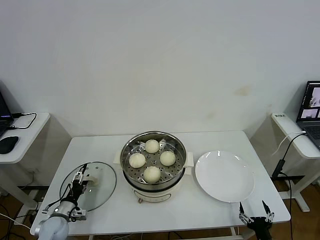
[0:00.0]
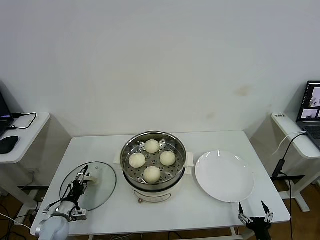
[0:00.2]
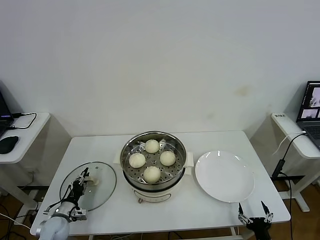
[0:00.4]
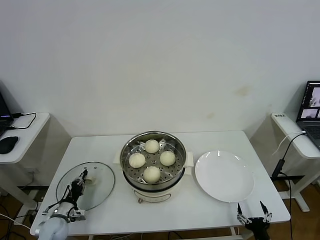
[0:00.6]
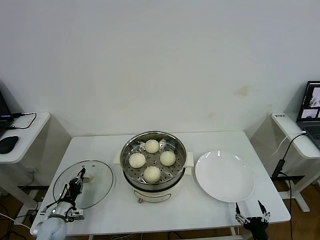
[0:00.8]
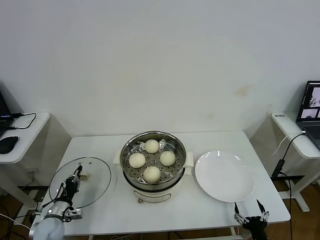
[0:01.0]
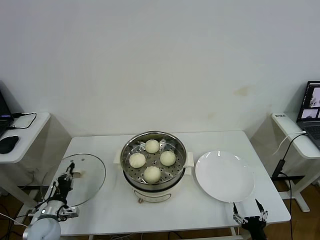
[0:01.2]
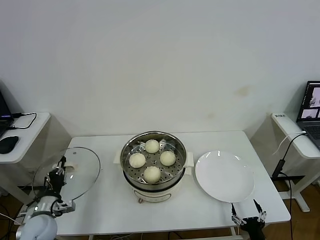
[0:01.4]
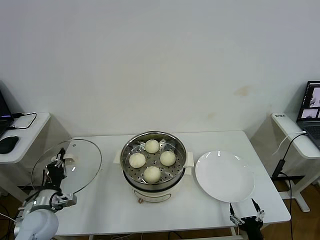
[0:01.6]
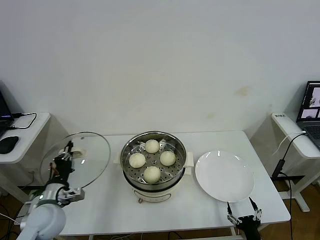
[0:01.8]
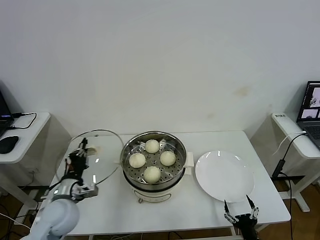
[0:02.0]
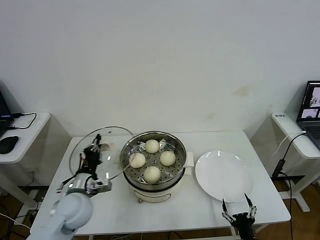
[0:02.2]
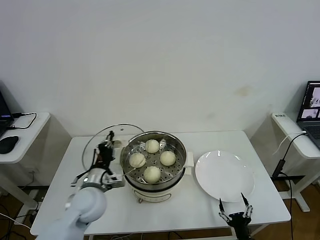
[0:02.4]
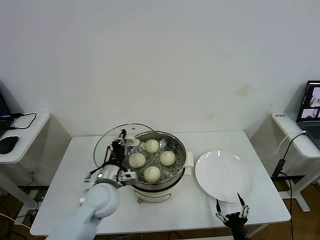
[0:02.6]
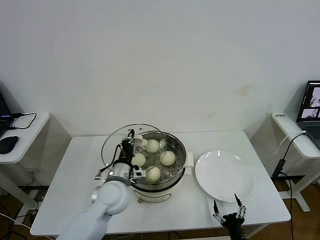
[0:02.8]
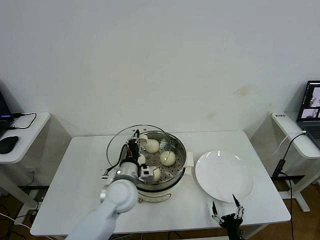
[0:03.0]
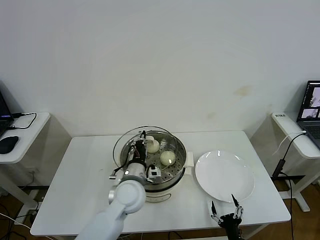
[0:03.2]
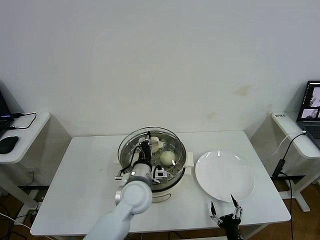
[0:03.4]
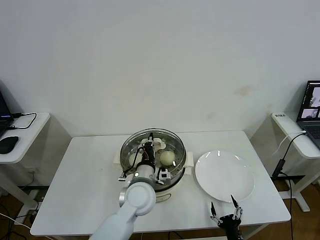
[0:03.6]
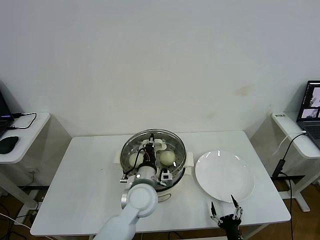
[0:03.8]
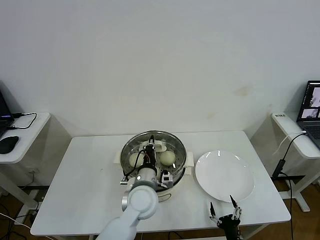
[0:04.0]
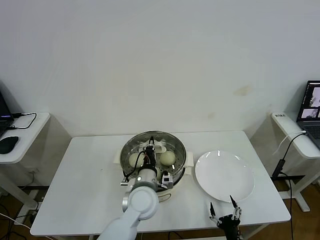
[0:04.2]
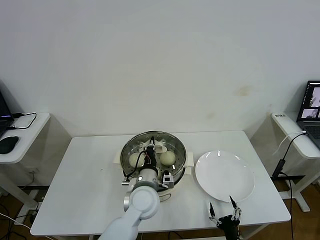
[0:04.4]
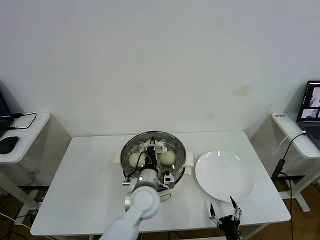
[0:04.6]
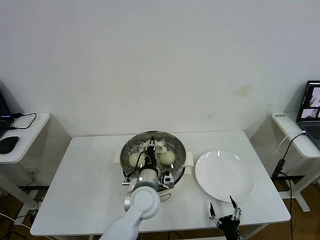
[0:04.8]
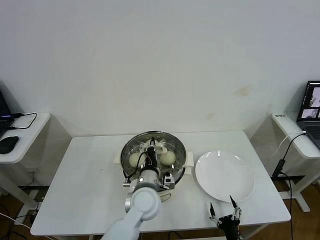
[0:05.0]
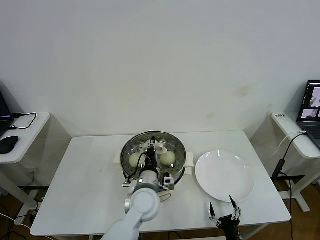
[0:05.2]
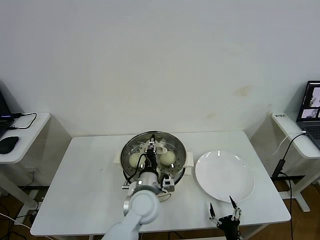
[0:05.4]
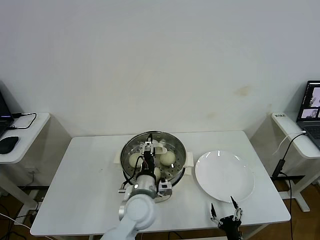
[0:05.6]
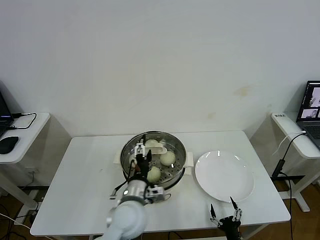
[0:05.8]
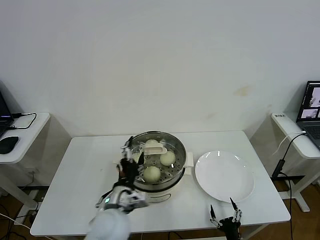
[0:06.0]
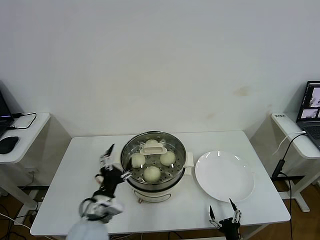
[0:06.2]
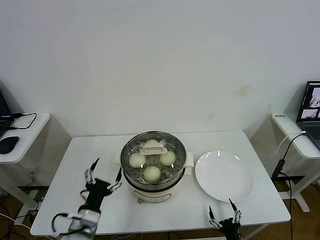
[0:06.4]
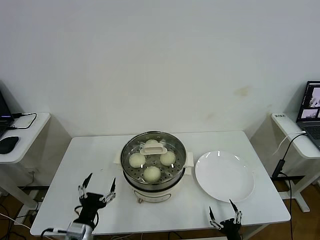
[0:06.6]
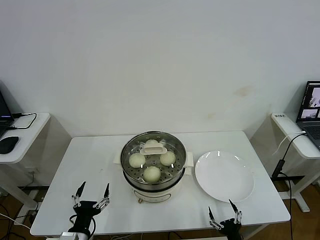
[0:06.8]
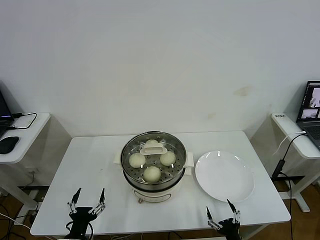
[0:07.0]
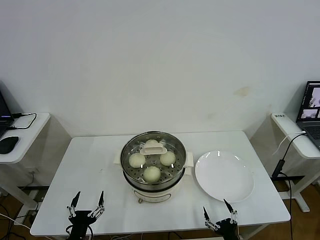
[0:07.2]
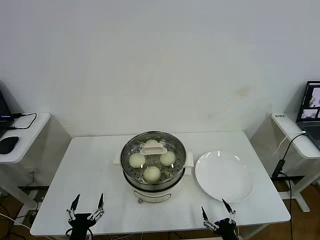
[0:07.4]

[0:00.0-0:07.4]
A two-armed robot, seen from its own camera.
Step, 0:01.0 to 0:05.2: Place the pot lid on the steamer with left gripper.
0:00.0 to 0:01.4: The left gripper goes about 10 cm upward, and closes up.
0:01.4 to 0:03.0: The right gripper moves to the left, about 5 cm; the left gripper shifts roughly 30 cm to the right and upward.
0:03.0 to 0:04.4: The left gripper is displaced to the right by about 5 cm.
0:04.4 to 0:06.0: The left gripper heads backward and to the left, covering some 10 cm, and opens its fingers.
0:06.0 to 0:07.4: The left gripper shifts roughly 25 cm to the left, backward and downward.

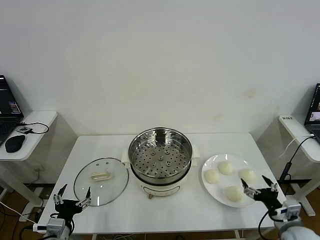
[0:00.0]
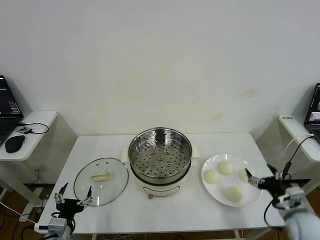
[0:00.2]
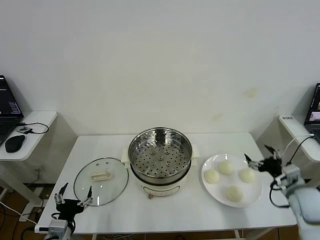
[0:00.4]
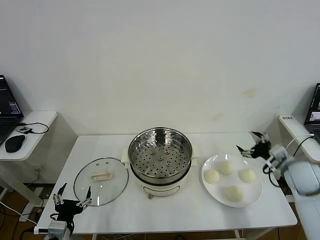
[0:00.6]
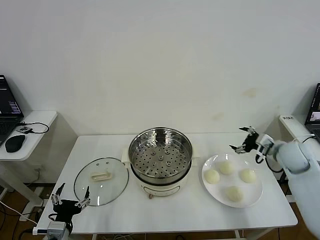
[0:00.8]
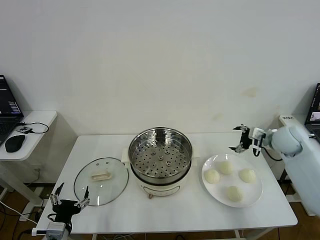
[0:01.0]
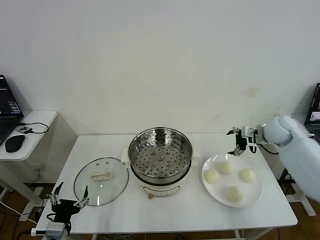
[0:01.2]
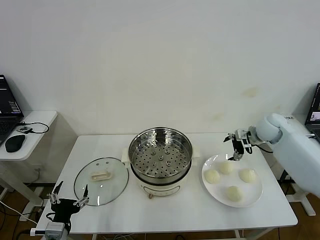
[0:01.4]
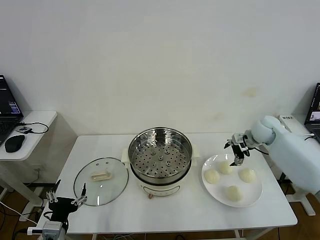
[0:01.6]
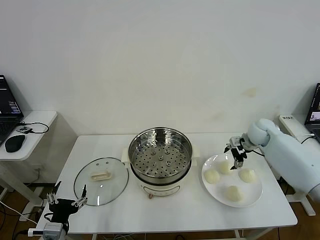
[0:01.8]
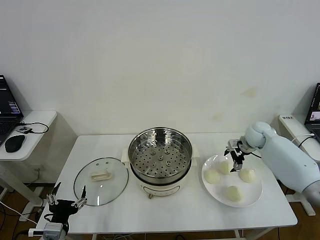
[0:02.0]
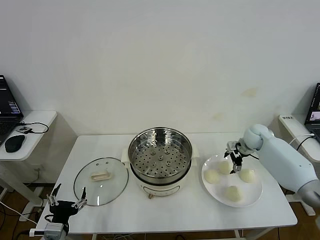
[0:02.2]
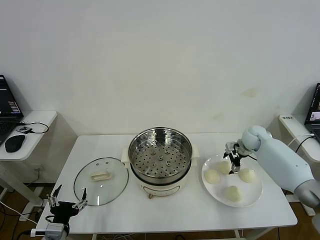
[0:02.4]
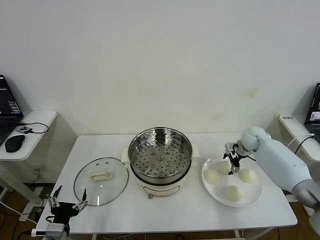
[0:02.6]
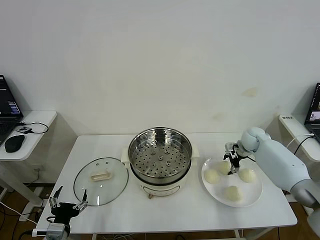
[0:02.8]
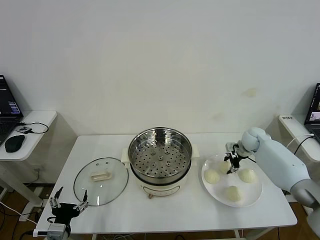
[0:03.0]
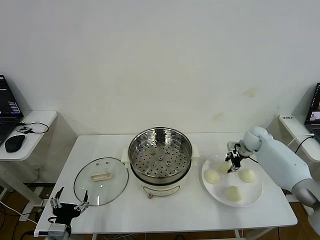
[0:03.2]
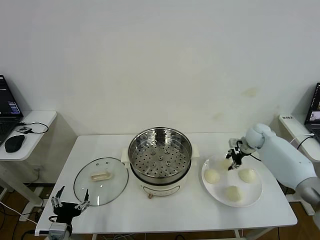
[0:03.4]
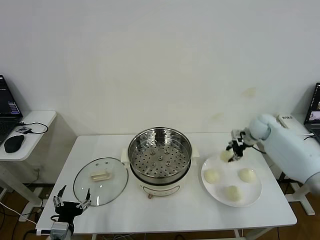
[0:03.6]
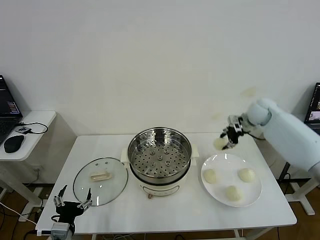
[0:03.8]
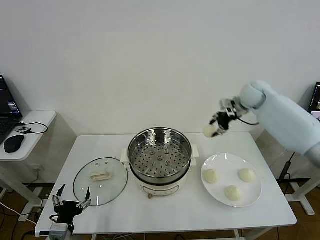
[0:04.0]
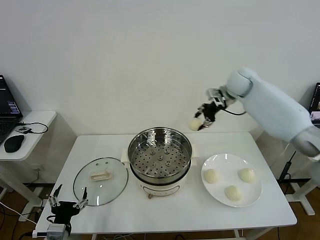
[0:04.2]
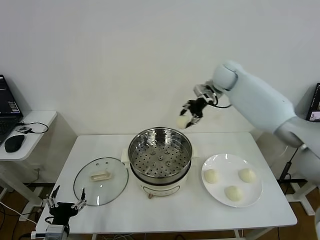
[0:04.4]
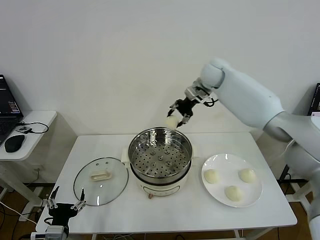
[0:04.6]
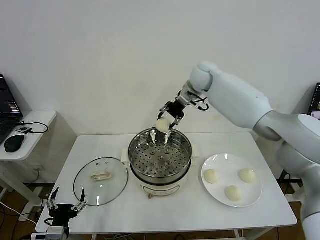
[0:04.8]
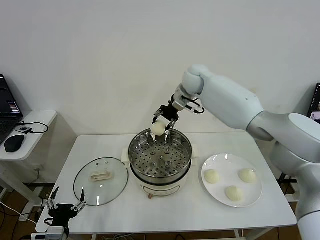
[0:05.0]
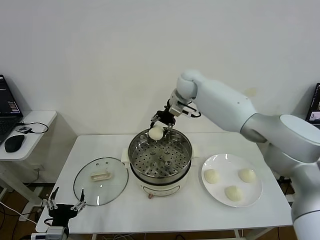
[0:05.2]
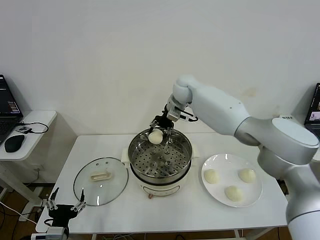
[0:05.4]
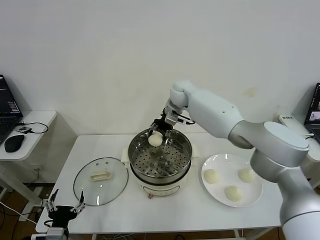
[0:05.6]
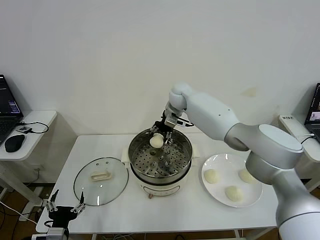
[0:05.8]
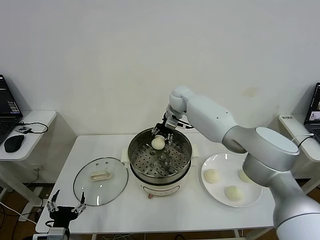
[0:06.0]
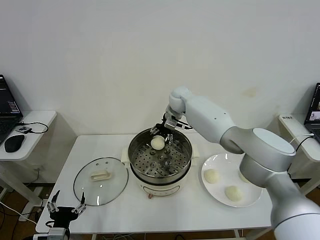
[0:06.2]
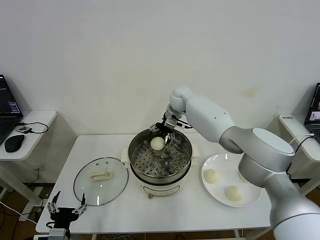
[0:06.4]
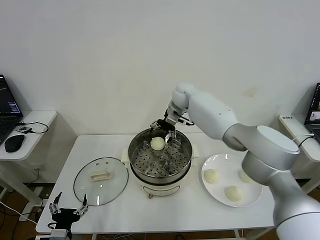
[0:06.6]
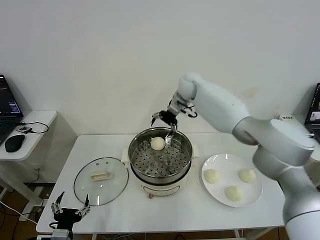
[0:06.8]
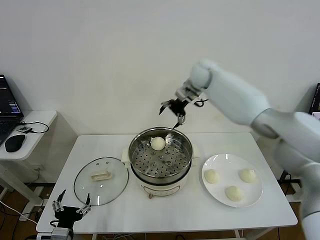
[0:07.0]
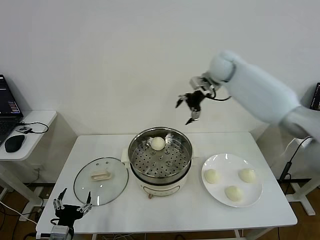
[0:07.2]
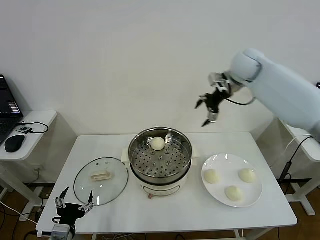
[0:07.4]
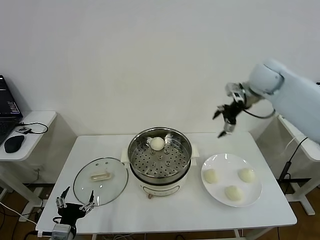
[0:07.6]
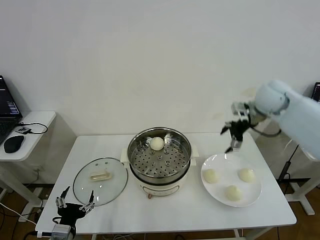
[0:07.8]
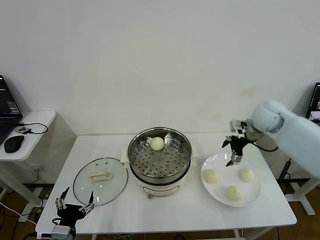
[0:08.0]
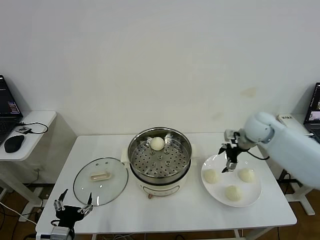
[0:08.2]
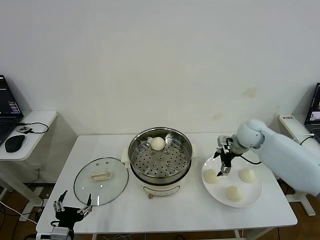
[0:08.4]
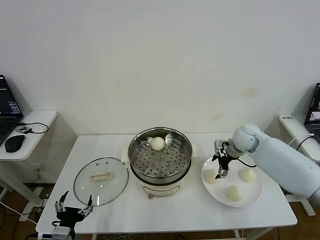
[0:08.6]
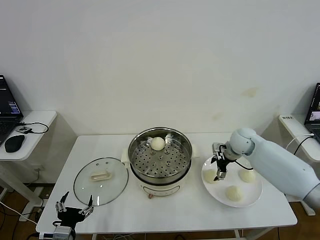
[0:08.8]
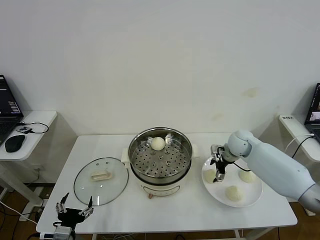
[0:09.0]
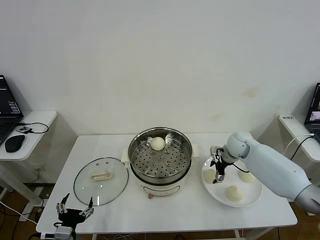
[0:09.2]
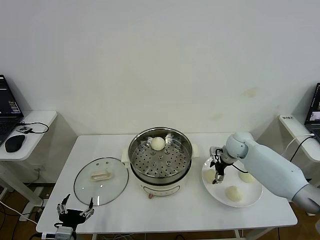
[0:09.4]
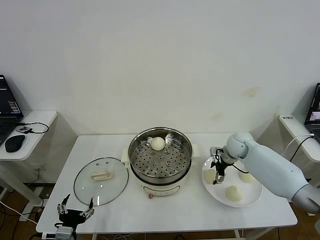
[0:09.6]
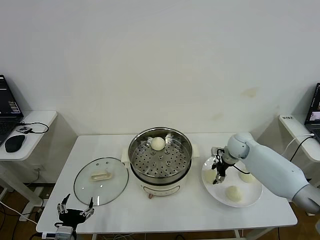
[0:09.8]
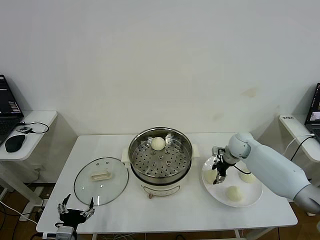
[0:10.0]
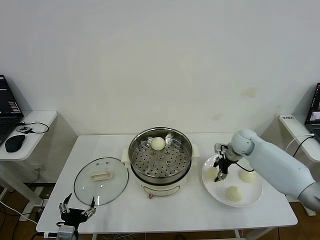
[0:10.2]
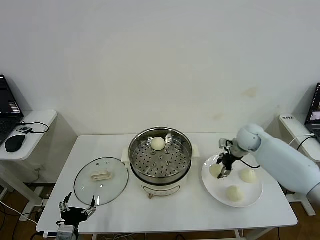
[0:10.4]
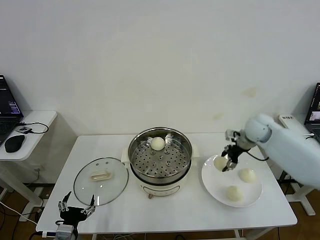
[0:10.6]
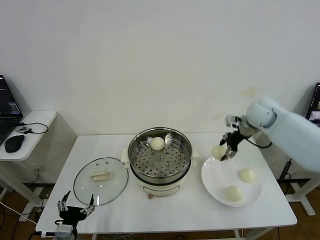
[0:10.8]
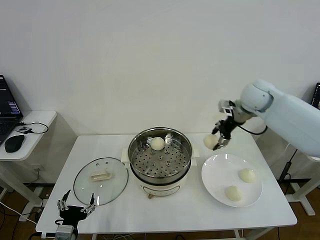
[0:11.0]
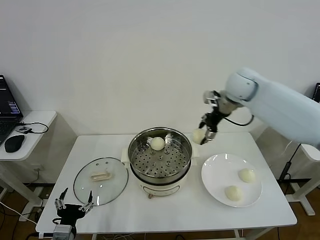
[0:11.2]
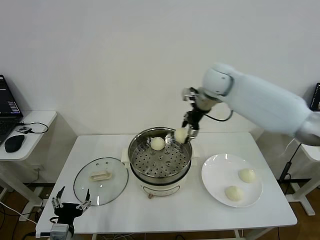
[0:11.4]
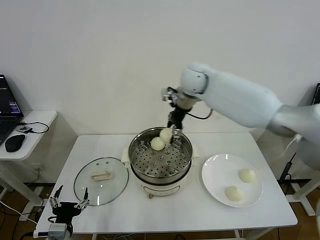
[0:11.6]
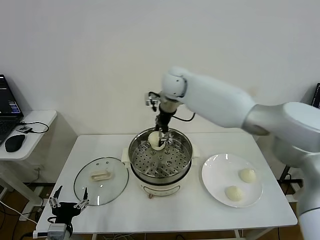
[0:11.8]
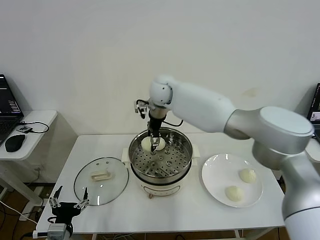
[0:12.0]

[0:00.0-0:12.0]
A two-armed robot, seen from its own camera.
Step, 0:00.0 to 0:03.0: Grasp the baozi in the plate with right gripper.
Step, 0:03.2 to 0:06.4: Place the baozi on the steamer with right gripper.
Step, 0:06.6 to 0:10.0: Grasp the baozi in the plate with right gripper.
0:01.6 to 0:03.0: The right gripper goes approximately 5 cm downward, and closes its fingers.
0:03.0 to 0:04.4: The right gripper heads upward and to the left, covering some 30 cm.
0:04.4 to 0:06.0: The right gripper heads to the left and downward, covering roughly 15 cm.
0:06.0 to 0:07.6: The right gripper heads to the right, upward and backward, covering approximately 30 cm, and opens.
0:07.6 to 0:09.0: The right gripper heads downward, covering some 25 cm.
0:09.0 to 0:10.4: The right gripper ends up approximately 5 cm from where it was, and closes its fingers.
0:10.4 to 0:12.0: The right gripper heads to the left, covering about 35 cm.

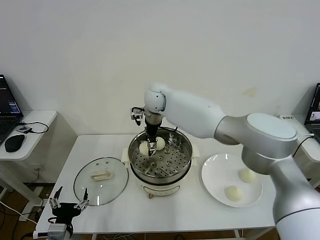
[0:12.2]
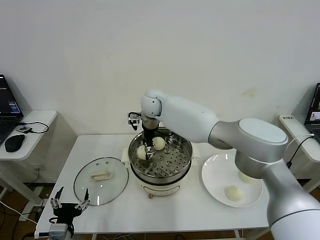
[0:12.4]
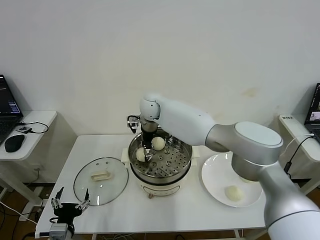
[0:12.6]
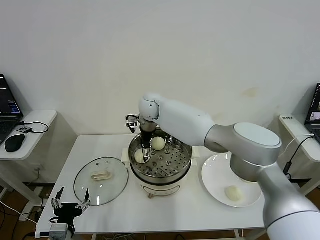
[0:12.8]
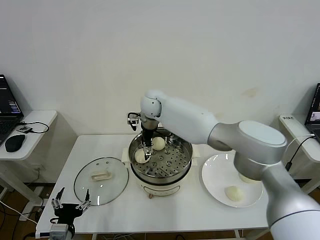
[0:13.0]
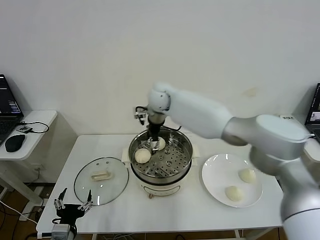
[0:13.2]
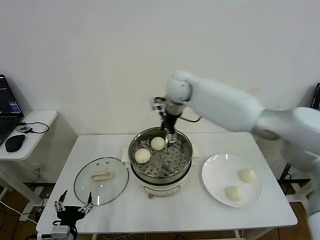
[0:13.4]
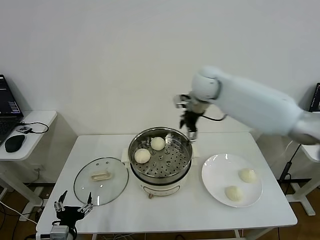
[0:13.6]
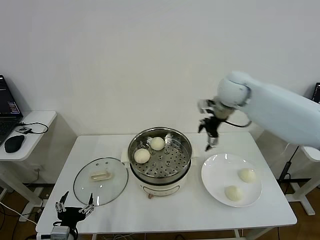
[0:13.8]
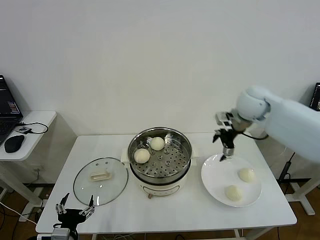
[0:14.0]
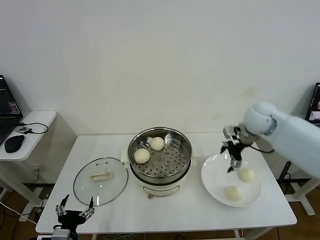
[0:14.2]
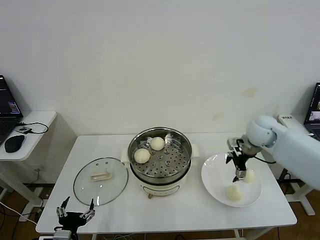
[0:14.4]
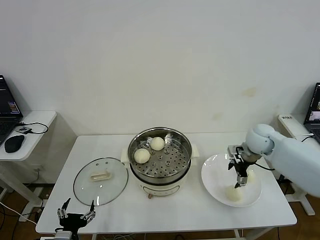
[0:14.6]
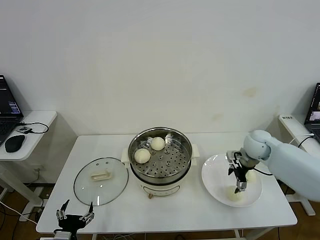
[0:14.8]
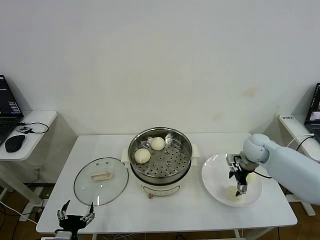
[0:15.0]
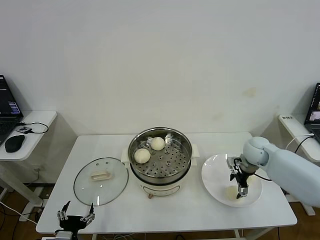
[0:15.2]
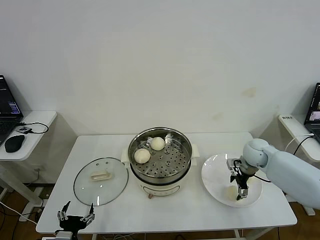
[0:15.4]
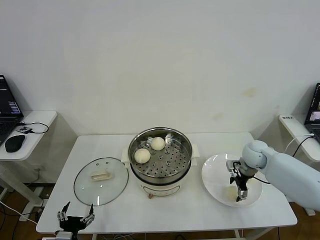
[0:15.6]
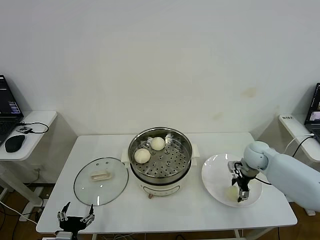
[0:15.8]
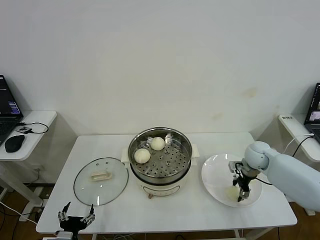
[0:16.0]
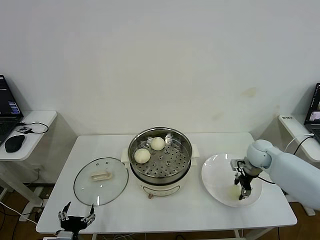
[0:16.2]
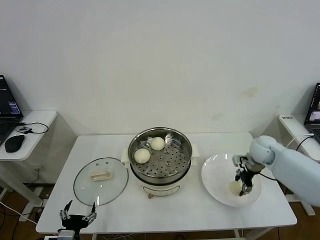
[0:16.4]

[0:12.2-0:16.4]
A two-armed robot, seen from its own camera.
Step, 0:13.2 to 0:16.0: Grasp the baozi in the plate with right gripper.
0:12.2 to 0:13.6: The right gripper moves to the right and upward, some 20 cm, and opens its fingers.
0:13.6 to 0:15.0: The right gripper shifts approximately 30 cm downward and to the right.
0:15.0 to 0:16.4: The right gripper closes.
